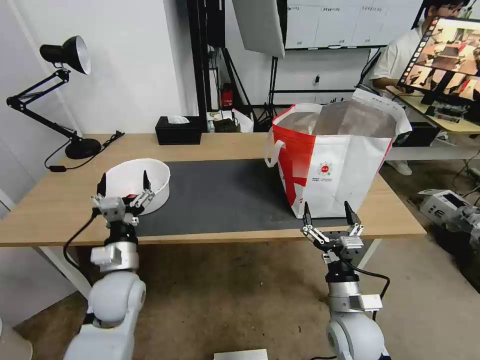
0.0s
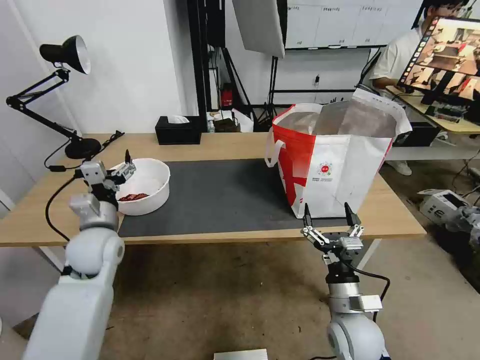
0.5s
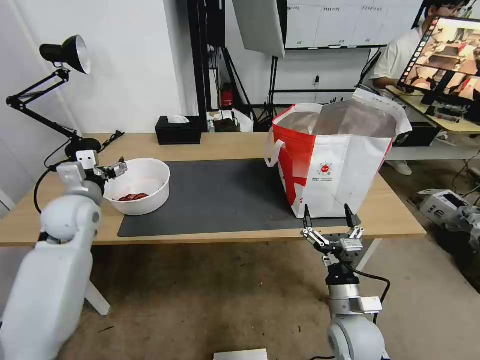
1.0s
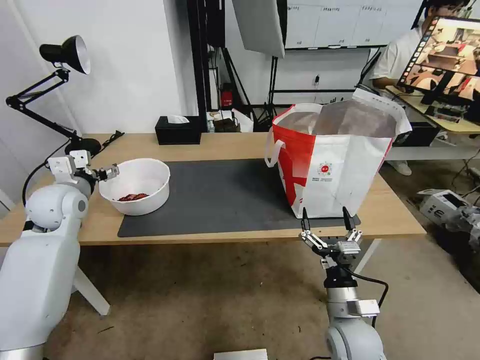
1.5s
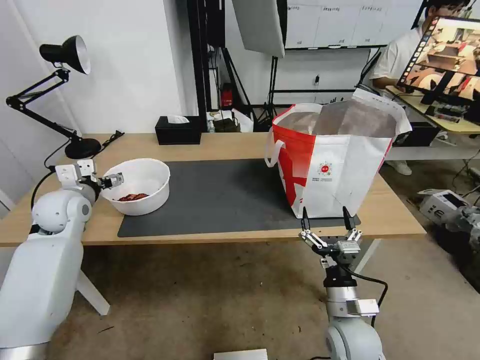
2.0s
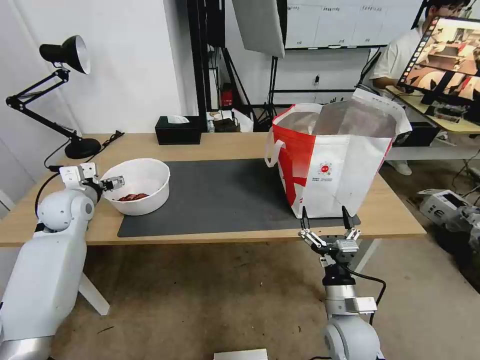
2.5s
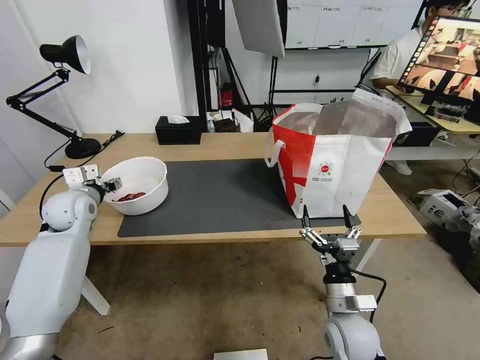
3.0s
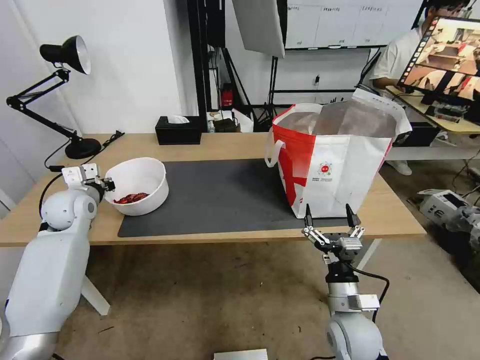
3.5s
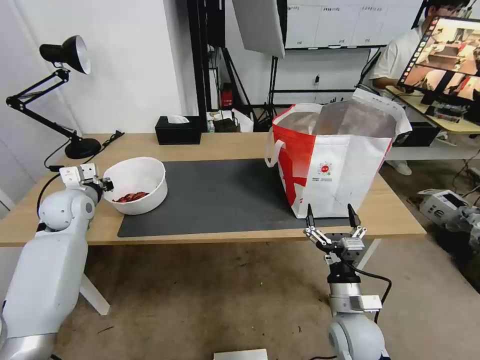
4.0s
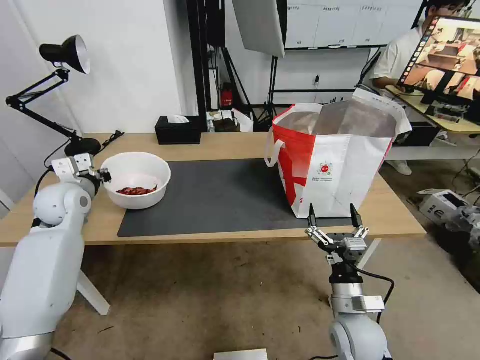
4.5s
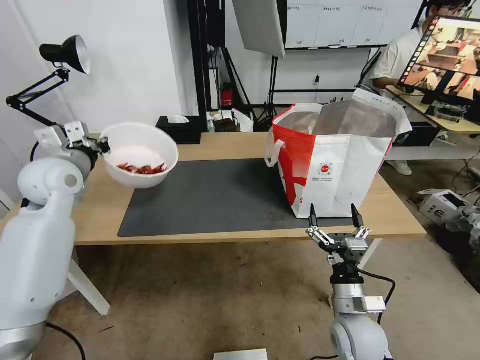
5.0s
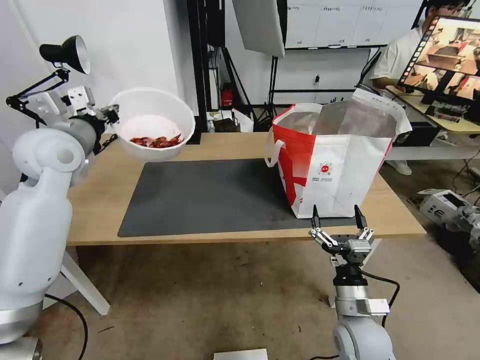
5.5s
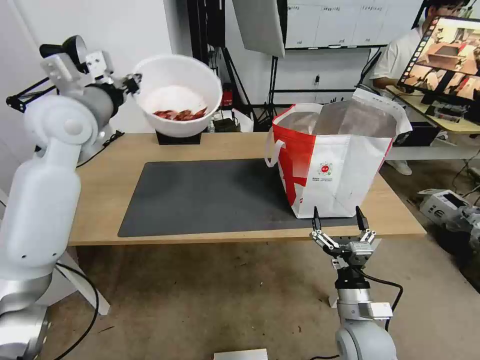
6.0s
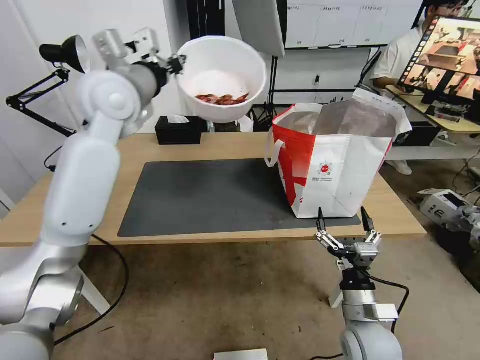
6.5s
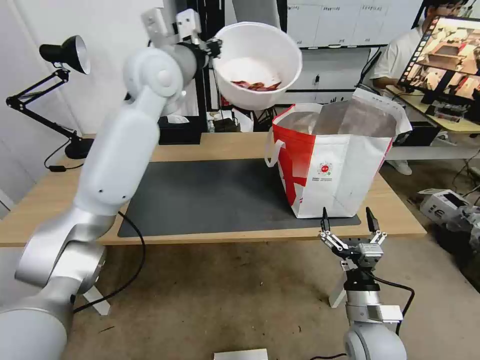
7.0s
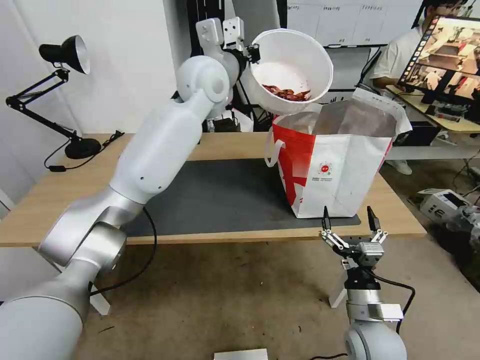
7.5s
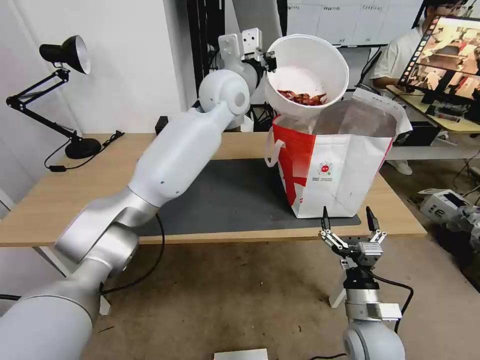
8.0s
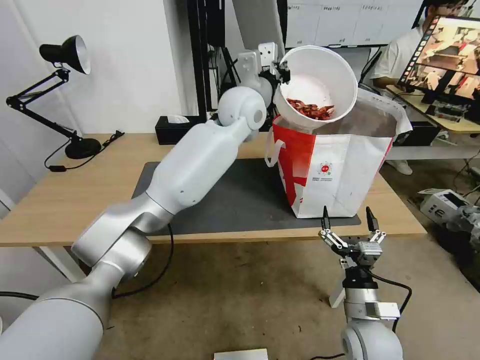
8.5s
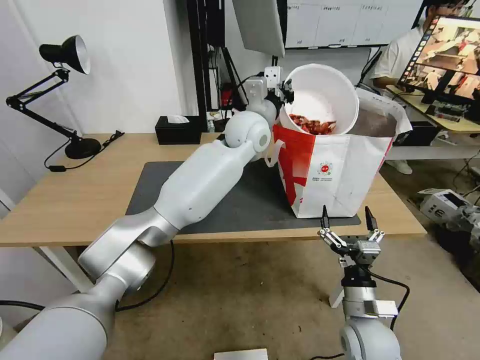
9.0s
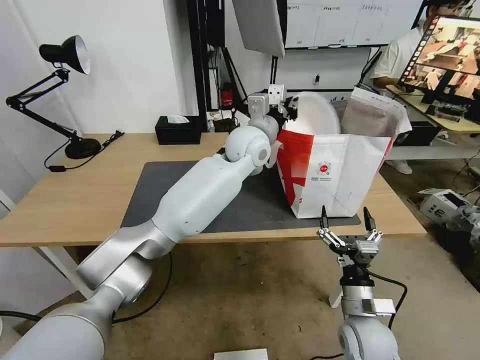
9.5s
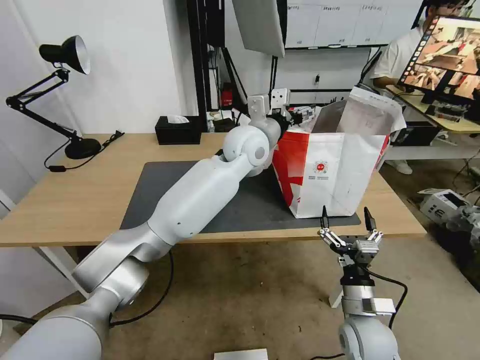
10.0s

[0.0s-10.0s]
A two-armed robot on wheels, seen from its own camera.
Task of the whole recording: Pick up the trash from the table and place it into the takeout bag.
0.0s to 2.0s: The left gripper shifts some 20 cm to the left, forward and upward.
2.0s to 4.0s: The left gripper closes.
4.0s to 6.0s: The left gripper heads upward and to the right, covering approximately 25 cm.
6.0s to 8.0s: The left gripper heads to the right and forward, covering about 30 cm.
8.0s to 10.0s: The left gripper shifts approximately 10 cm downward, and opens up.

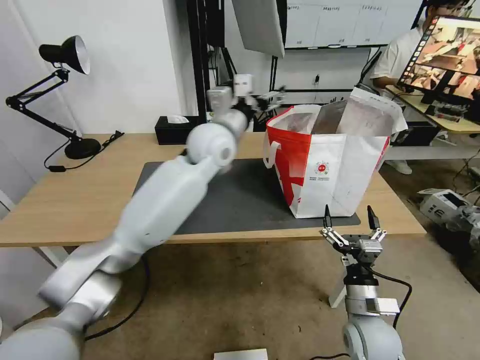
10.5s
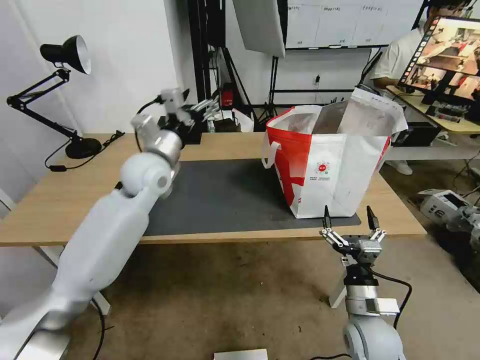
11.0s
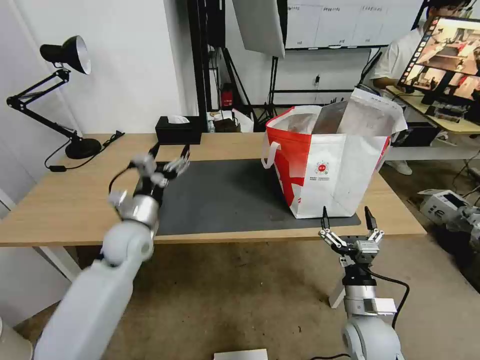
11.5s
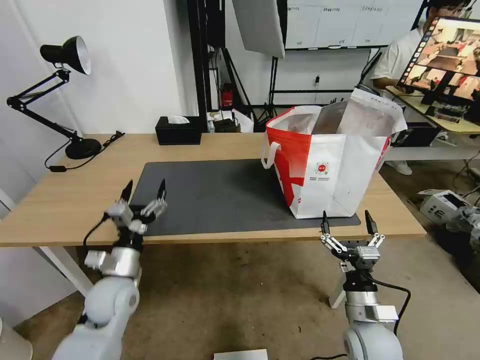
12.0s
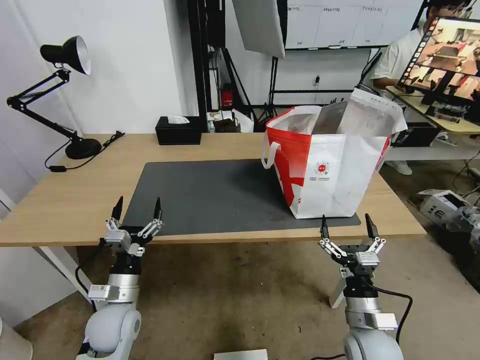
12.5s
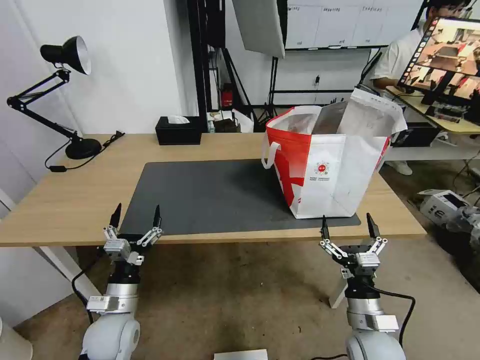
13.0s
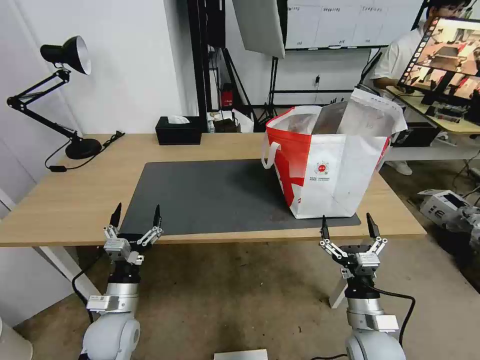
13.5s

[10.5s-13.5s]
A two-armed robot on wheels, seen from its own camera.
Task of the whole recording: Pick up the trash from the table and place it into the takeout bag.
10.5s to 12.0s: The left gripper travels downward, backward and to the left by roughly 40 cm.
12.0s to 13.5s: The left gripper shifts roughly 5 cm backward.
